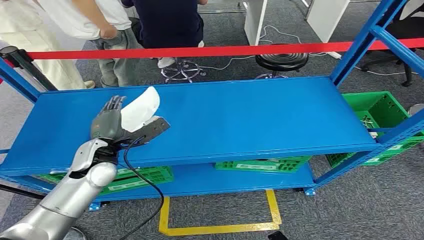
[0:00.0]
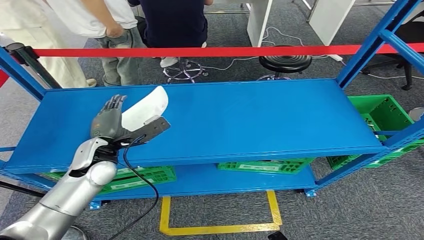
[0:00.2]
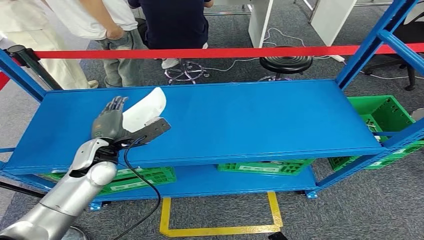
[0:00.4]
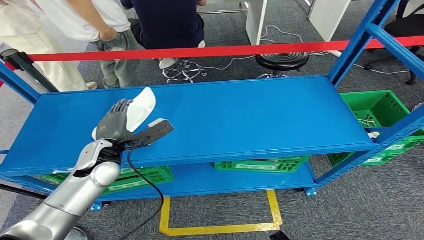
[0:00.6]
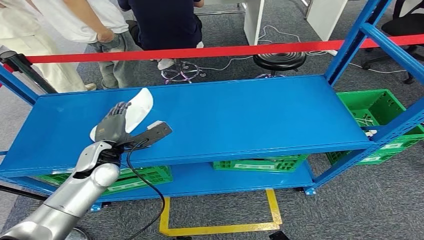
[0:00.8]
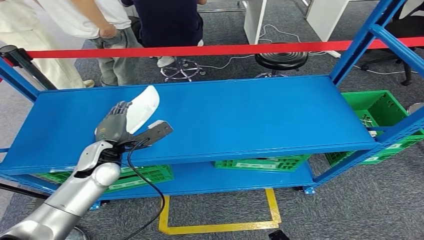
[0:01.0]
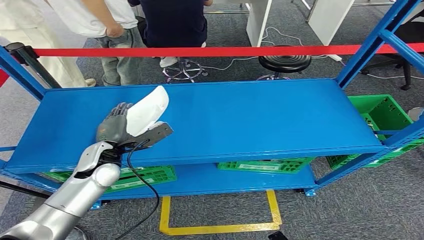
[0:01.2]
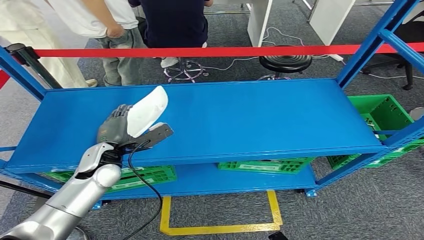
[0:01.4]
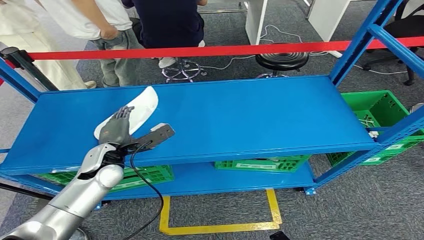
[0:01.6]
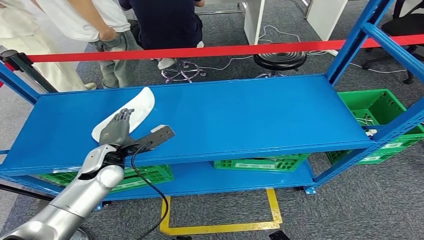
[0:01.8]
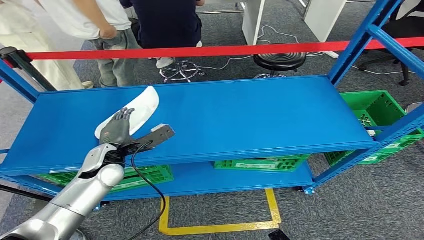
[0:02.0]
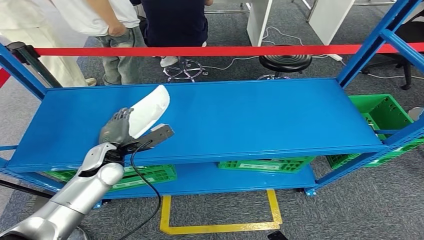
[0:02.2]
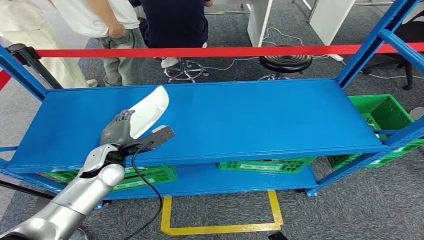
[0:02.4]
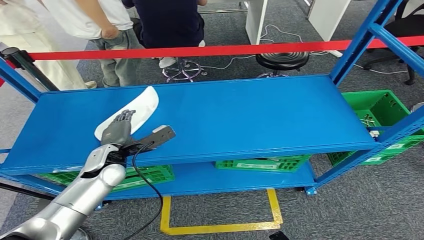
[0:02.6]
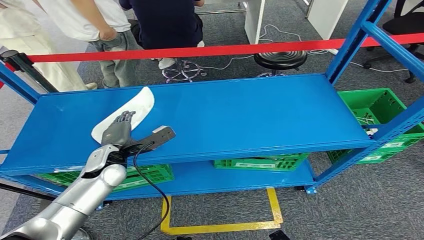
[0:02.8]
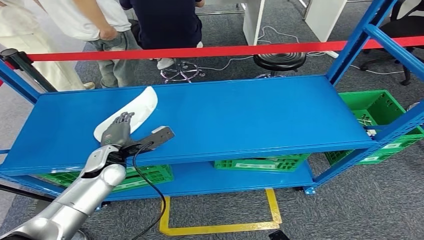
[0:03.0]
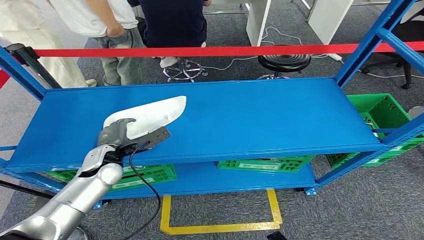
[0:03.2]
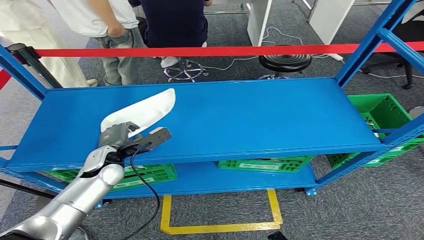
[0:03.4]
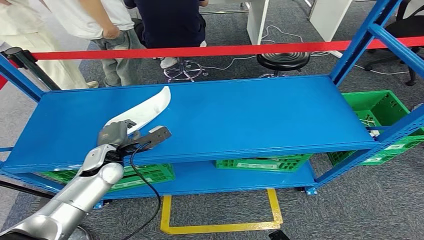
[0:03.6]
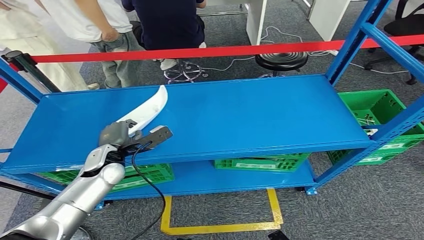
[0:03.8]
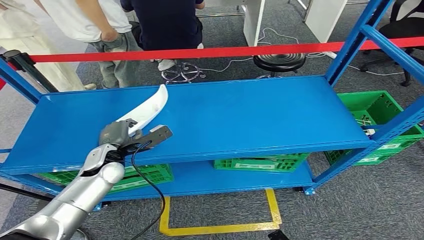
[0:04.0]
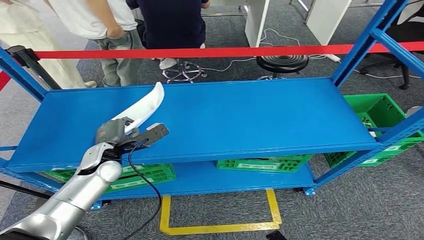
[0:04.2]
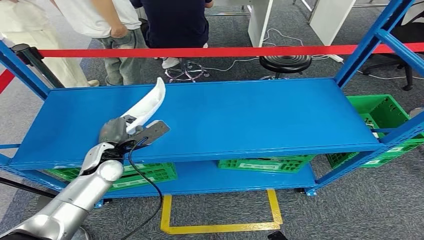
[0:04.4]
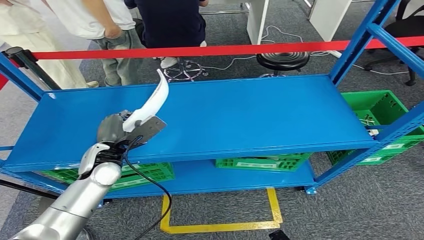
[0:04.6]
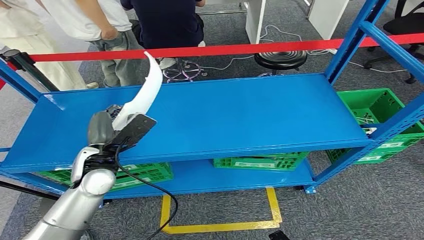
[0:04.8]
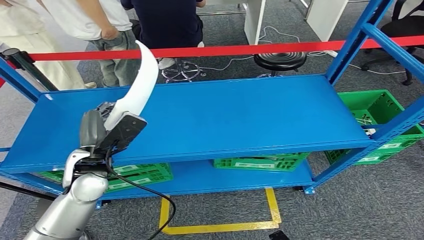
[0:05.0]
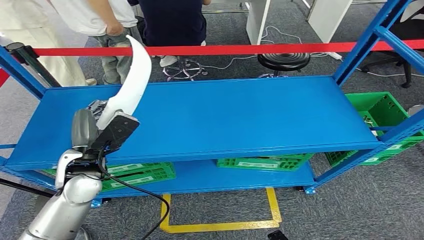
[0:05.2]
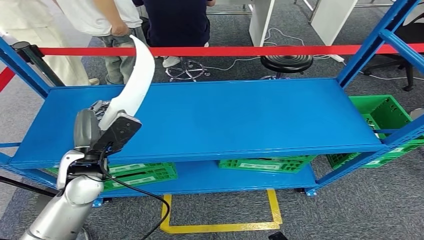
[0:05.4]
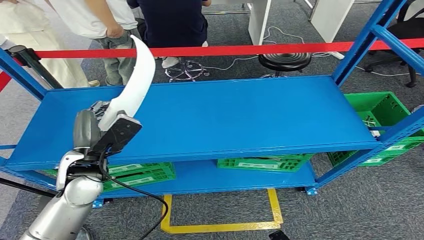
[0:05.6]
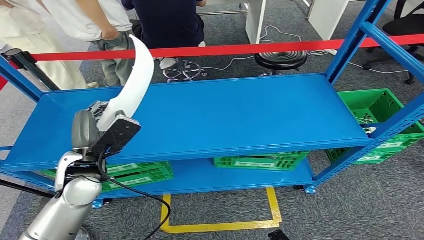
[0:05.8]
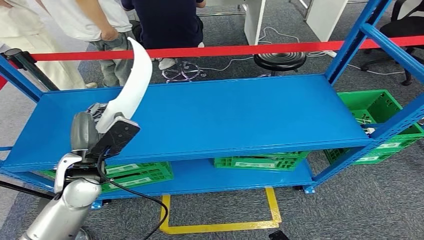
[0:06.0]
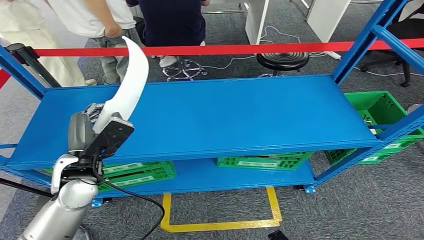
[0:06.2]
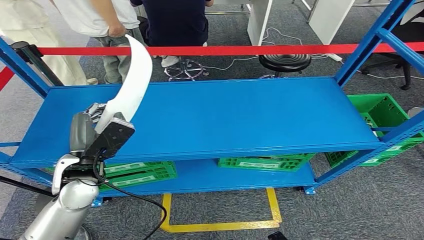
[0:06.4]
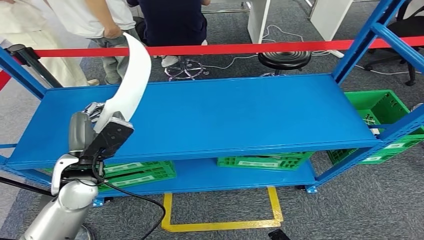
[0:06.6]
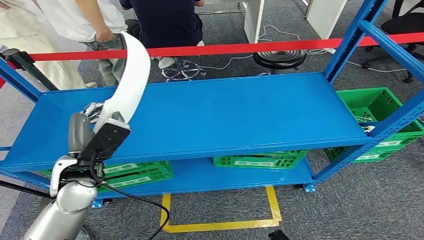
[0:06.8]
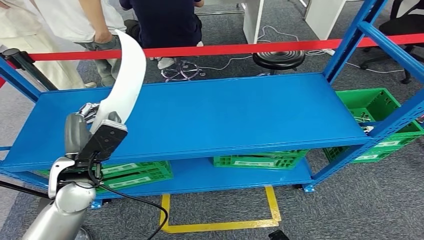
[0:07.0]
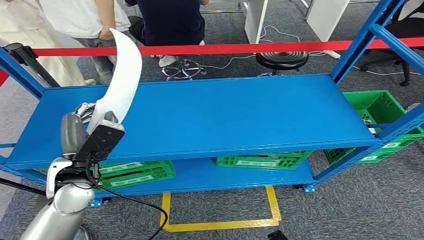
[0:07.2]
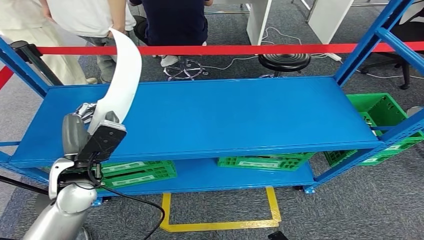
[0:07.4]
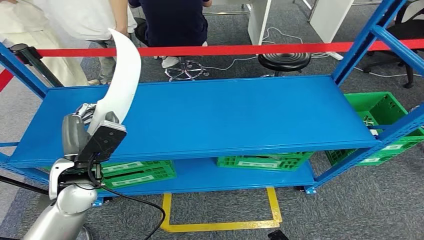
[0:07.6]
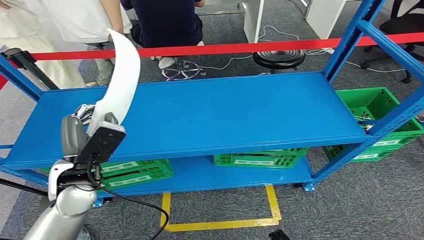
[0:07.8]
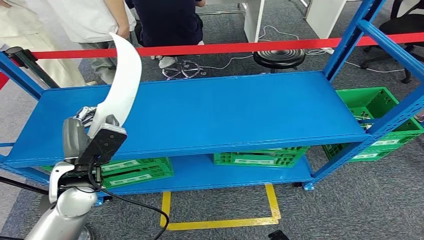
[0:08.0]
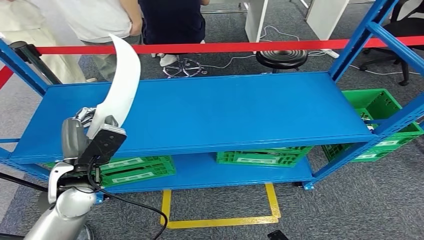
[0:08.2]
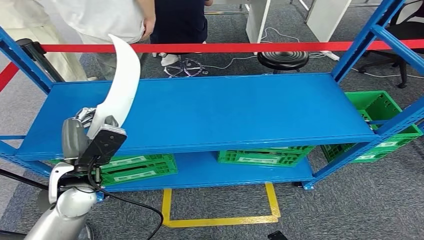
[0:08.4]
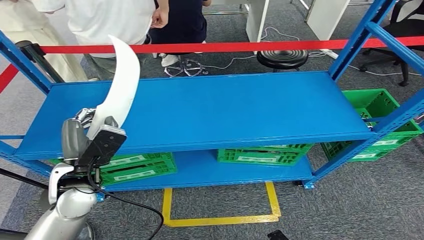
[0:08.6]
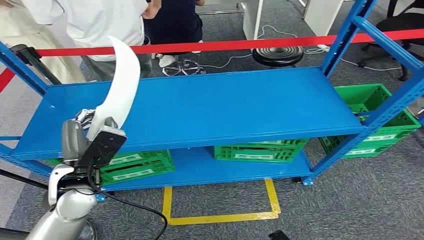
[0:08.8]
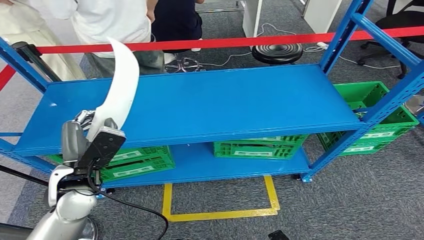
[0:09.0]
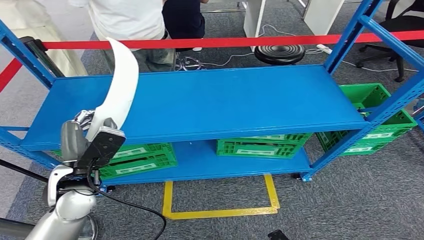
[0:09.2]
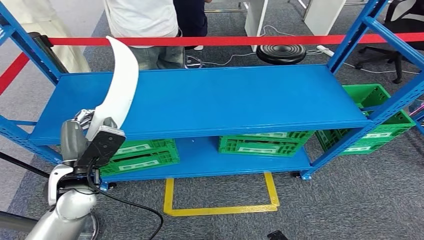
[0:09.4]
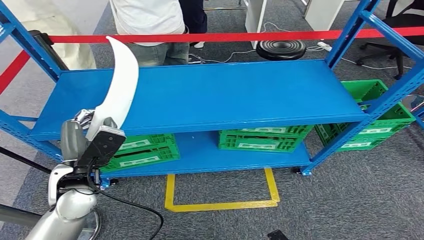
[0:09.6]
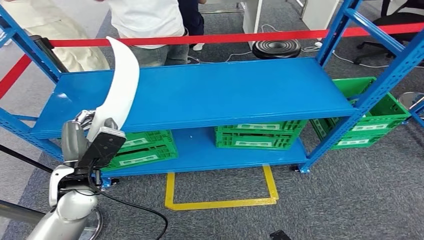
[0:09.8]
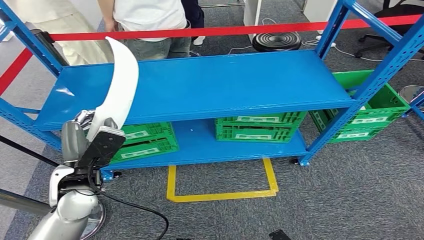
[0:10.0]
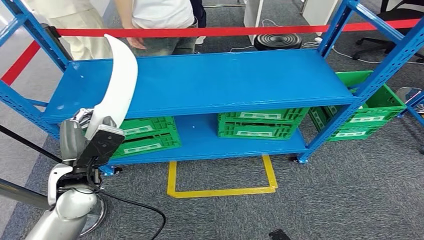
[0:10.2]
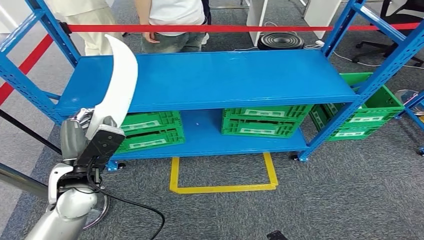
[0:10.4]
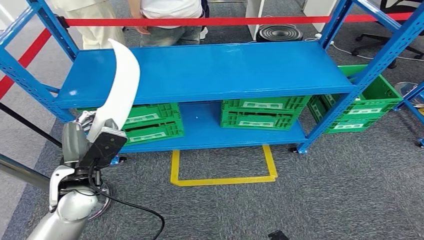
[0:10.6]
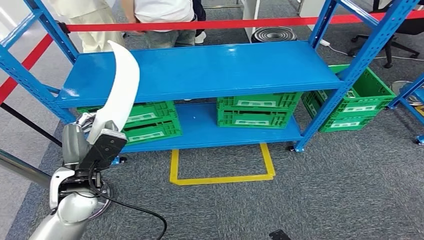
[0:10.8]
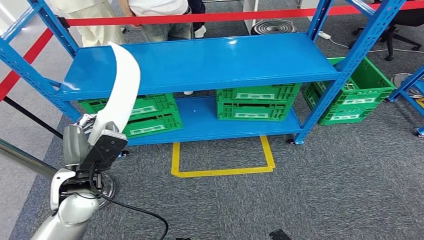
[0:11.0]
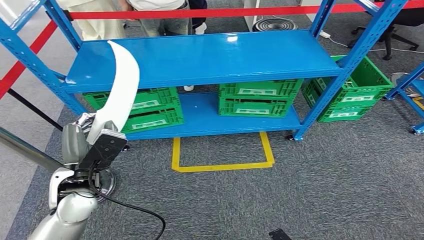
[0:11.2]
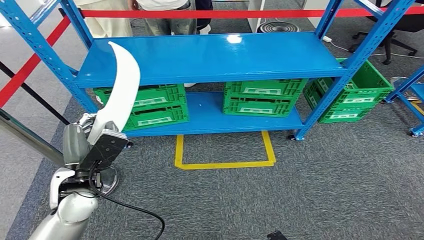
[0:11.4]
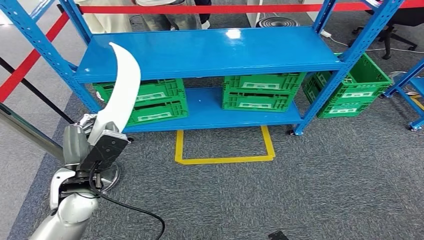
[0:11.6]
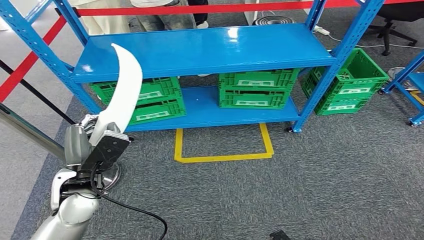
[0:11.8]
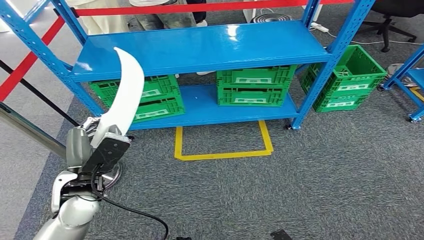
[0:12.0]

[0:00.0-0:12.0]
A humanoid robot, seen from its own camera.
Step, 0:00.0 to 0:08.0: Pick up the small parts from the shelf.
0:01.6 to 0:03.0: There are only small adjustments of the hands.

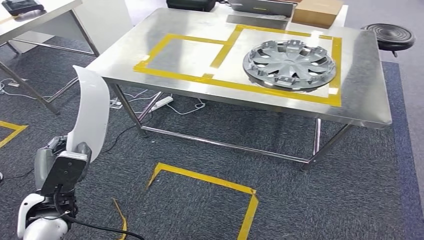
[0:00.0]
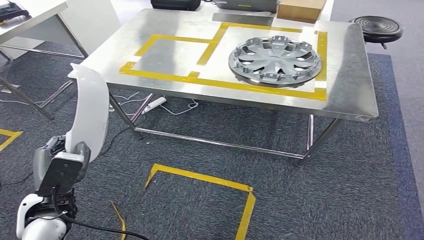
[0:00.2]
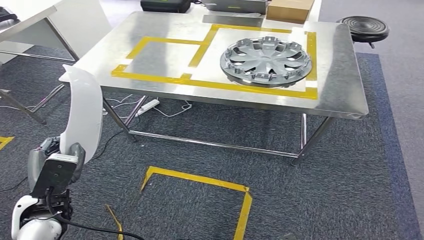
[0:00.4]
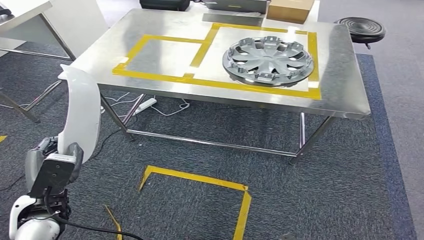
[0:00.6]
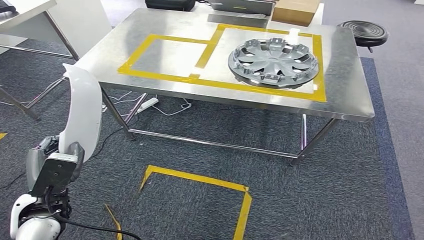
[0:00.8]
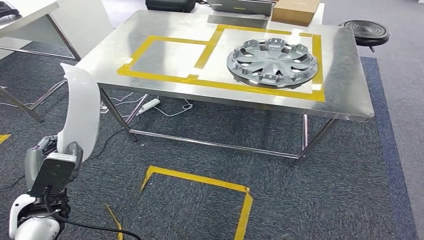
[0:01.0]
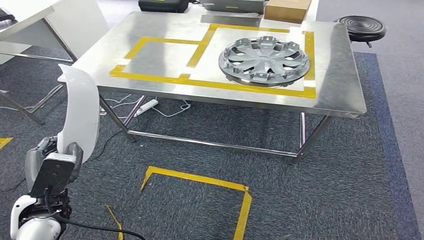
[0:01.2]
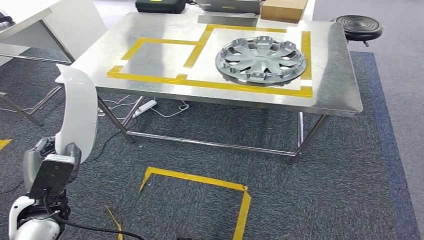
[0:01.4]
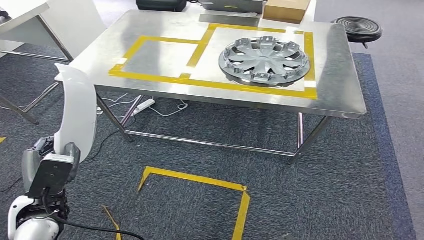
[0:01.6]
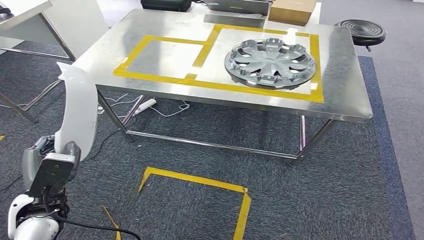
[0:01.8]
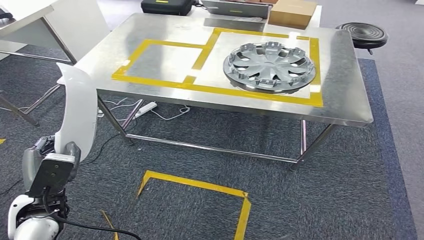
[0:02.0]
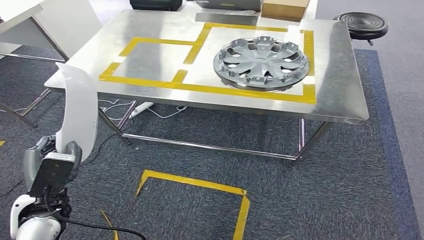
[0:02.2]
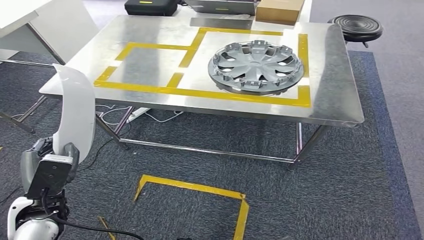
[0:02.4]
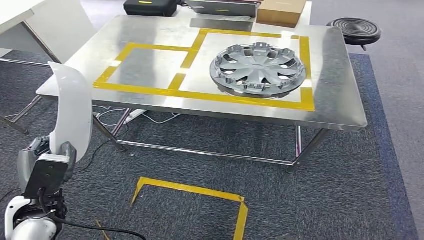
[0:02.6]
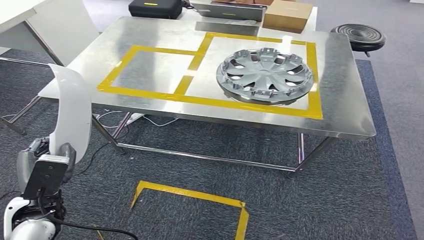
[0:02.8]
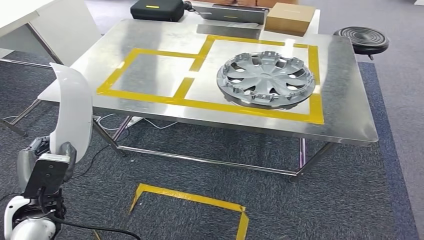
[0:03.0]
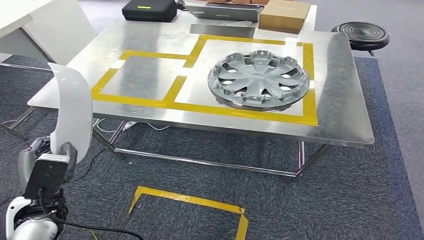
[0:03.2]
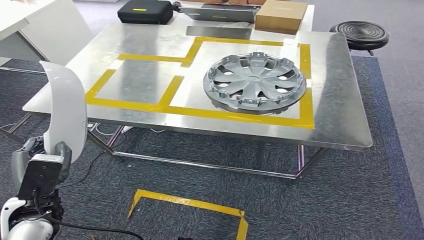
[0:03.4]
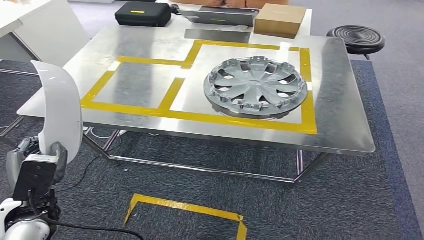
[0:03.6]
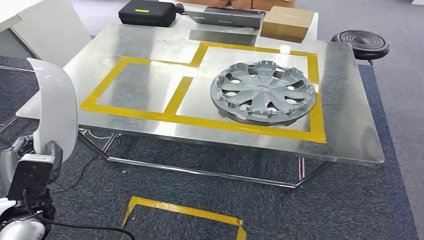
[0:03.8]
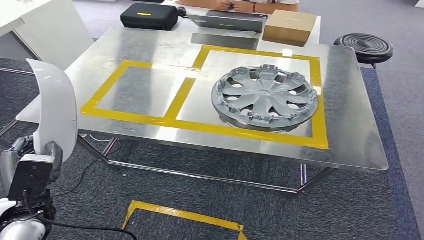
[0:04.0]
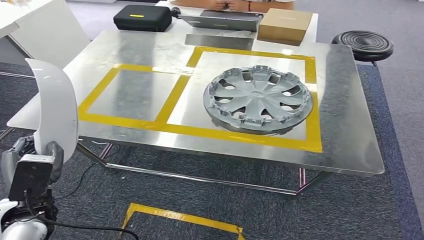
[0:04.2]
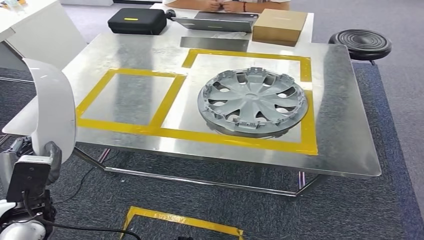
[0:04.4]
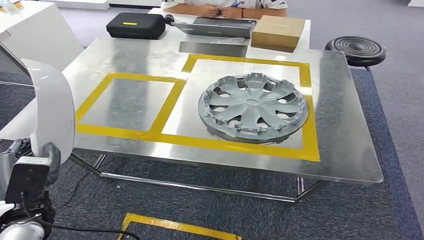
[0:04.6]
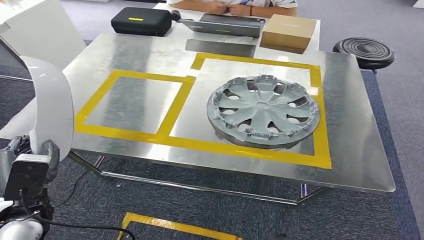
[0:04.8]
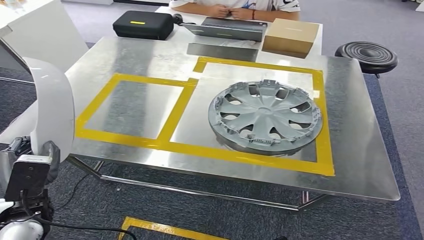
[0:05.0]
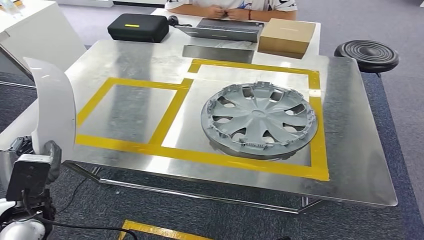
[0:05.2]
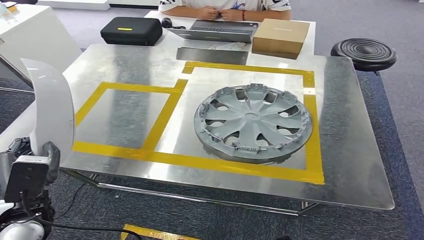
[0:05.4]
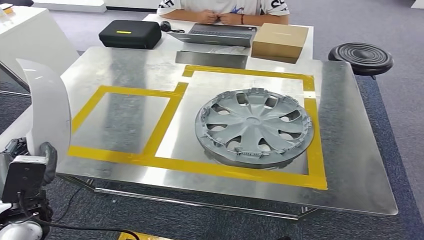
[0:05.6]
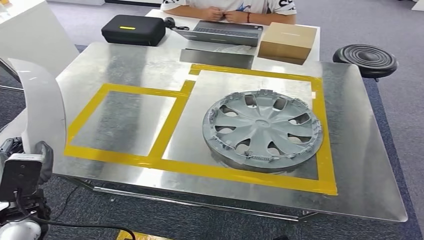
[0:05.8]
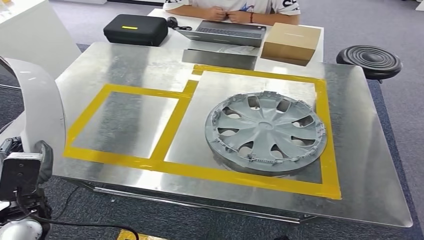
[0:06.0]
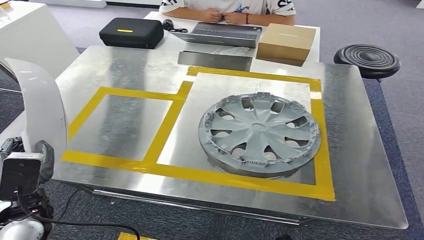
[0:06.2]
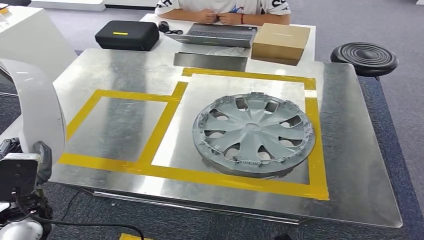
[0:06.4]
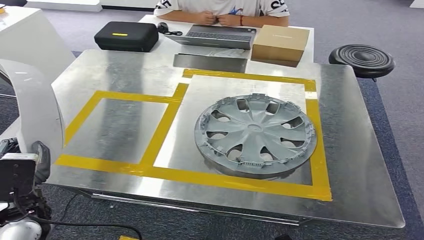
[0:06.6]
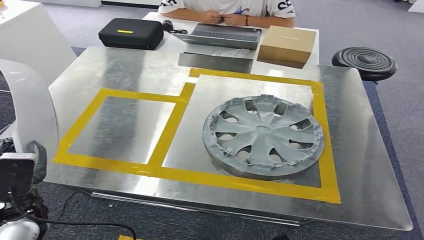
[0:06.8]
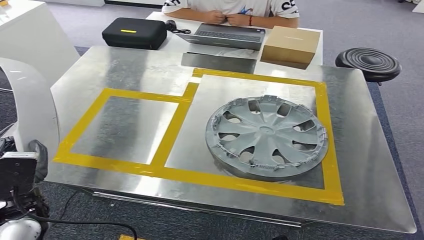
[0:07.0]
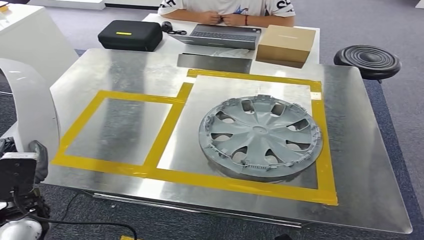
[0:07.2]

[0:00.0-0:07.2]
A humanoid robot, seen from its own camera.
Step, 0:00.0 to 0:05.2: Move the small parts to the workbench.
